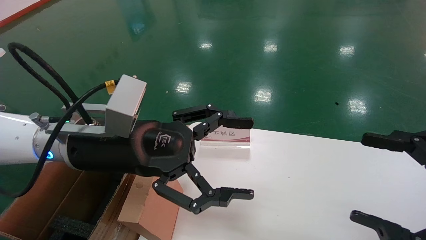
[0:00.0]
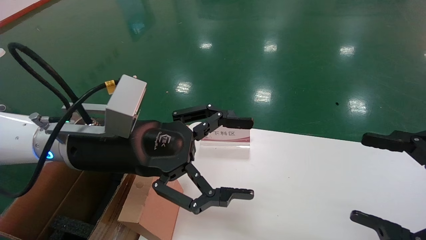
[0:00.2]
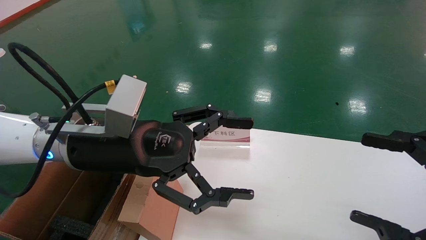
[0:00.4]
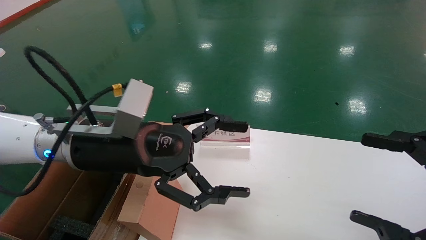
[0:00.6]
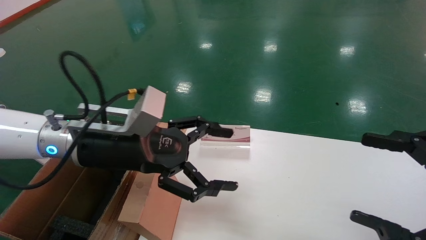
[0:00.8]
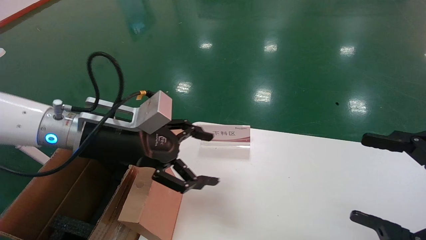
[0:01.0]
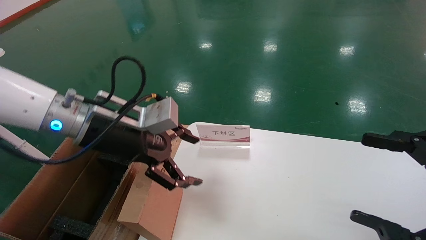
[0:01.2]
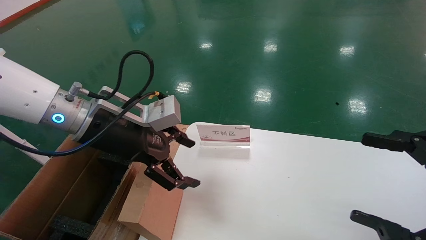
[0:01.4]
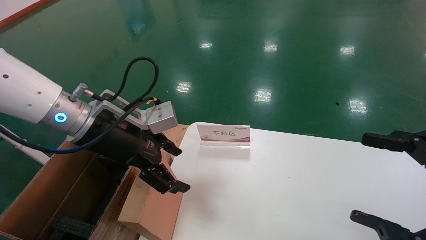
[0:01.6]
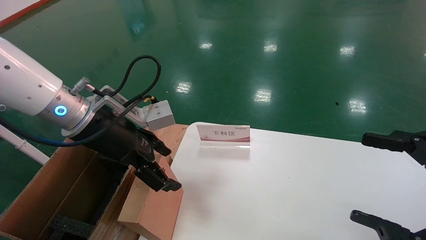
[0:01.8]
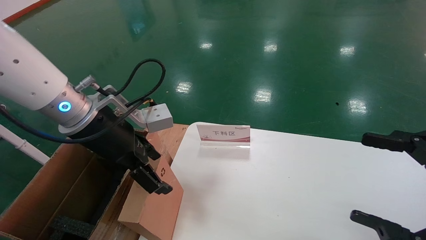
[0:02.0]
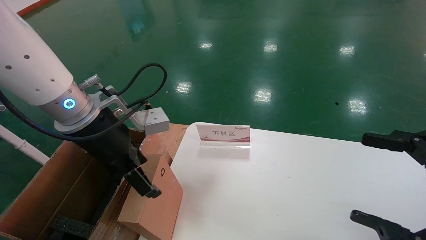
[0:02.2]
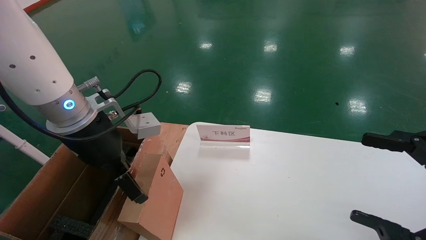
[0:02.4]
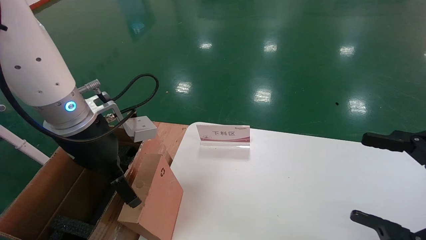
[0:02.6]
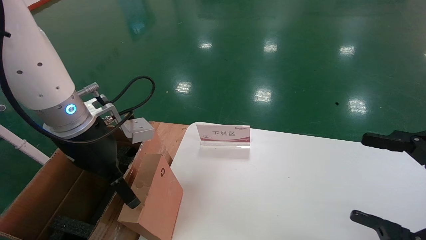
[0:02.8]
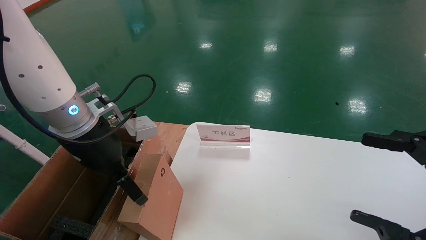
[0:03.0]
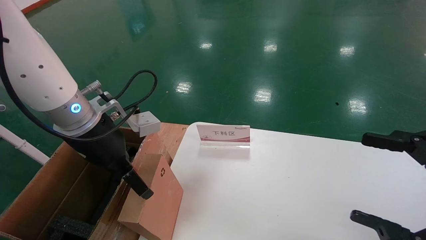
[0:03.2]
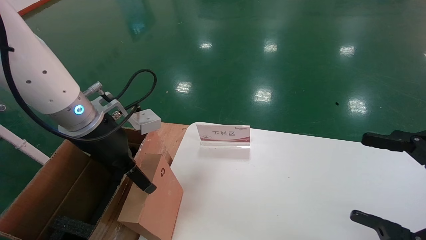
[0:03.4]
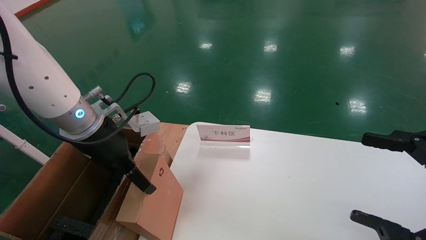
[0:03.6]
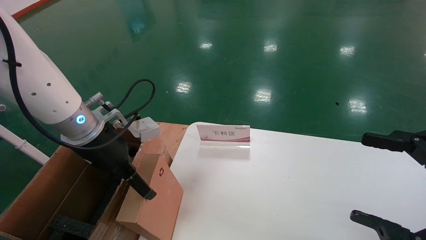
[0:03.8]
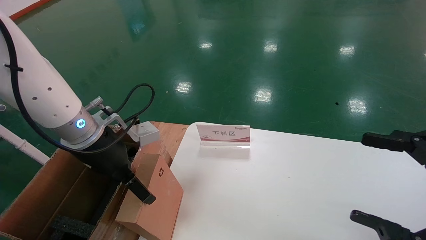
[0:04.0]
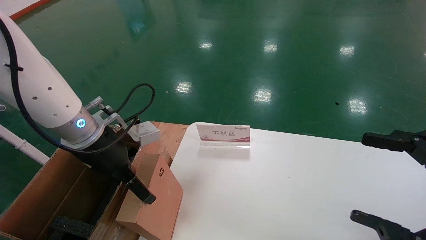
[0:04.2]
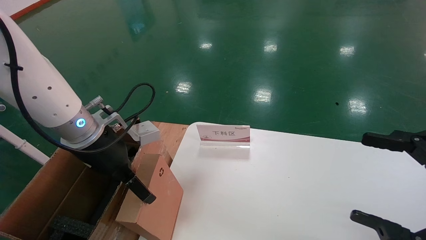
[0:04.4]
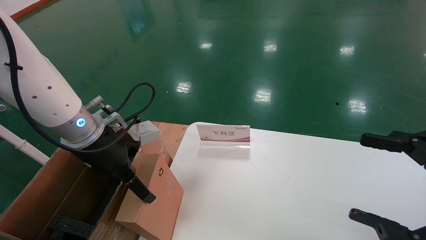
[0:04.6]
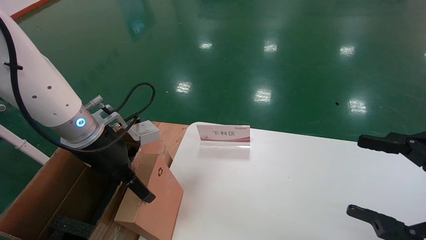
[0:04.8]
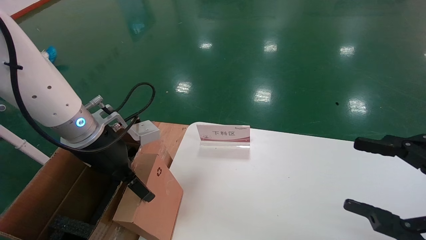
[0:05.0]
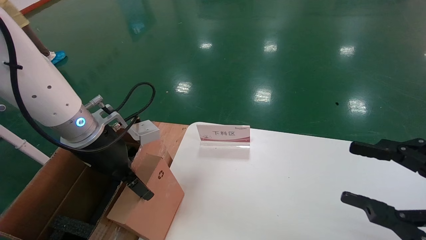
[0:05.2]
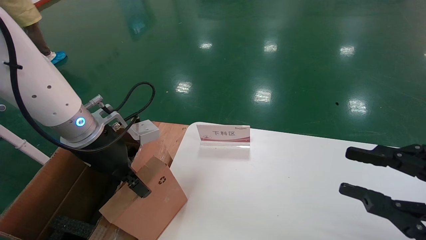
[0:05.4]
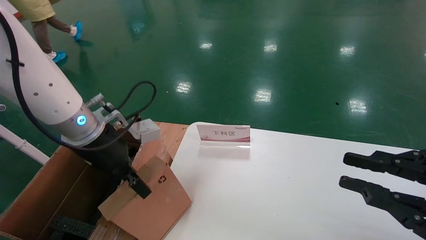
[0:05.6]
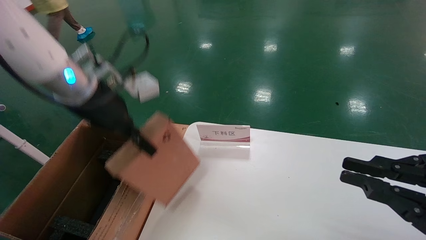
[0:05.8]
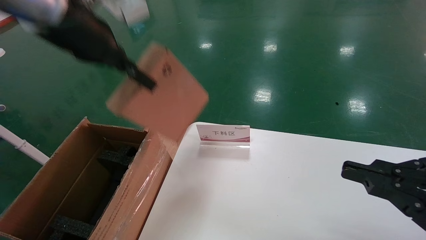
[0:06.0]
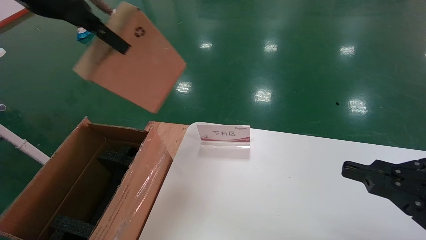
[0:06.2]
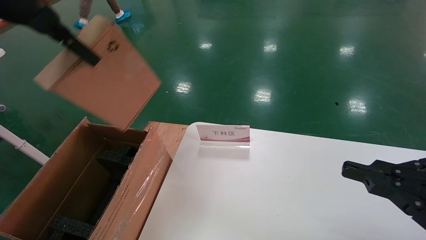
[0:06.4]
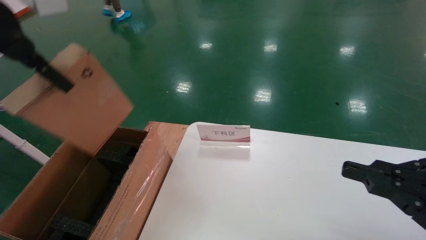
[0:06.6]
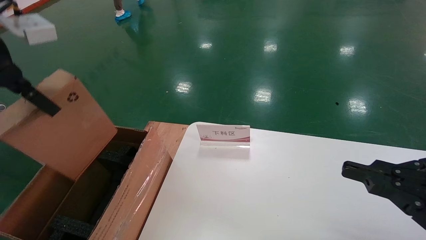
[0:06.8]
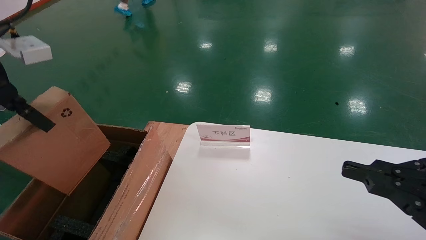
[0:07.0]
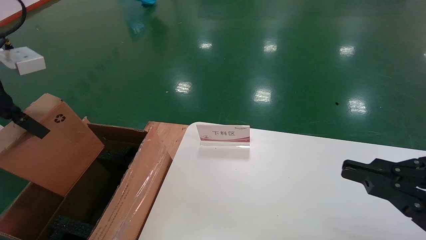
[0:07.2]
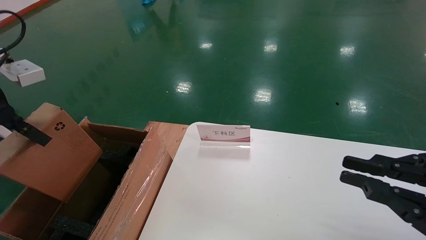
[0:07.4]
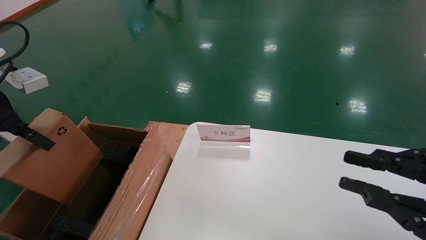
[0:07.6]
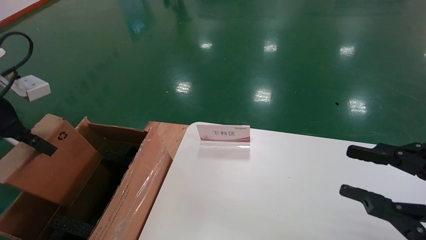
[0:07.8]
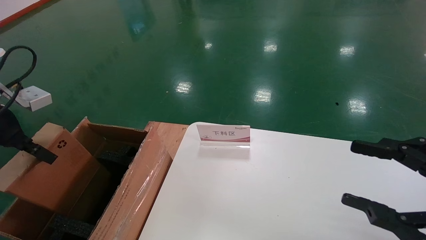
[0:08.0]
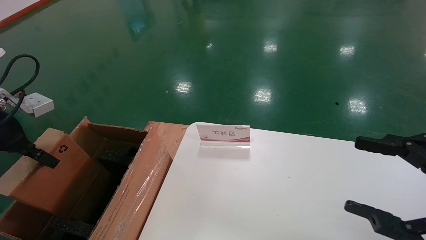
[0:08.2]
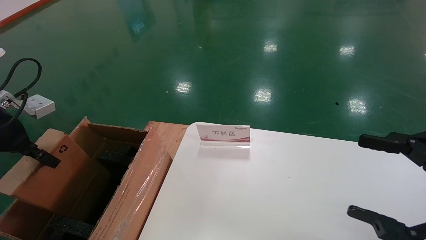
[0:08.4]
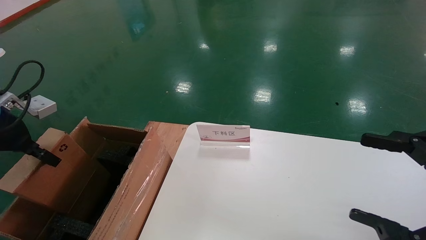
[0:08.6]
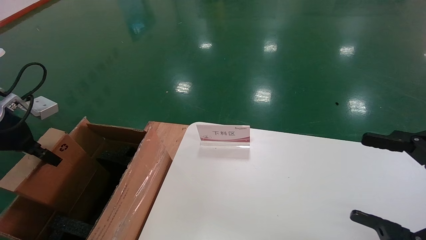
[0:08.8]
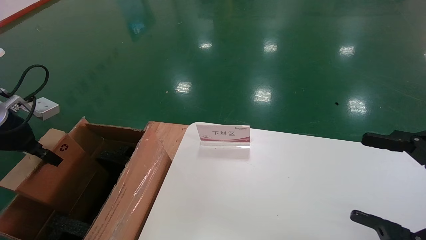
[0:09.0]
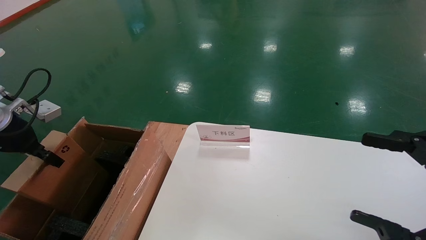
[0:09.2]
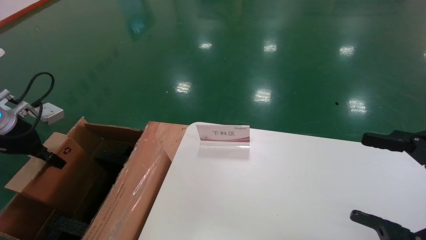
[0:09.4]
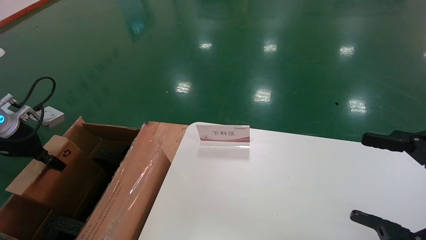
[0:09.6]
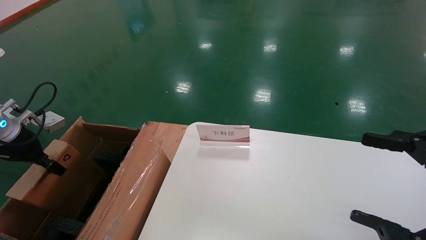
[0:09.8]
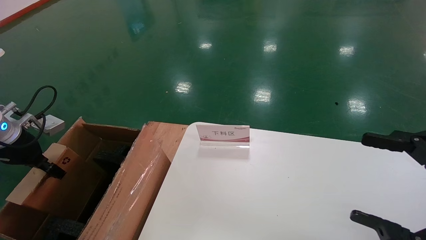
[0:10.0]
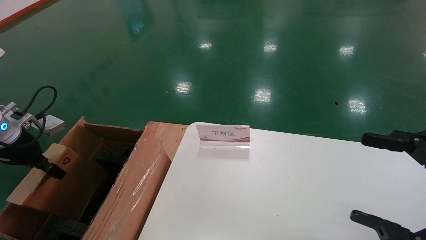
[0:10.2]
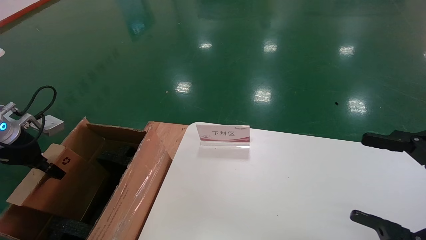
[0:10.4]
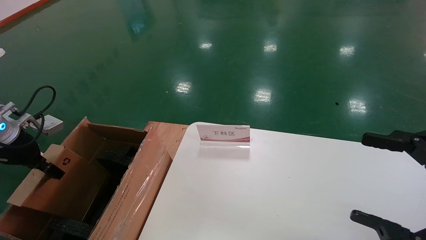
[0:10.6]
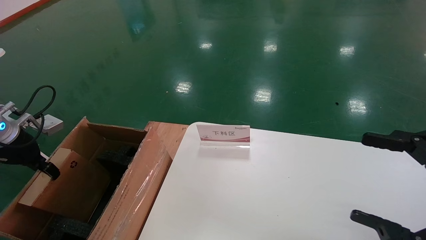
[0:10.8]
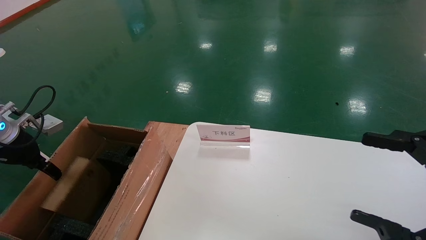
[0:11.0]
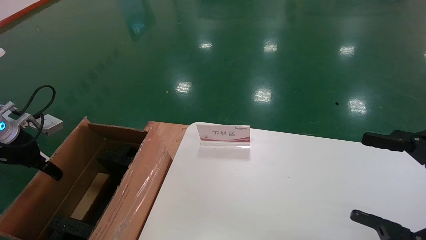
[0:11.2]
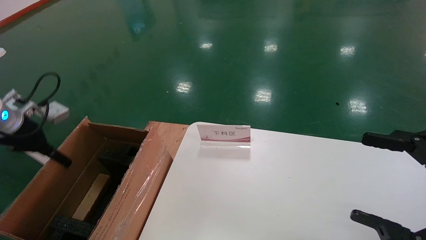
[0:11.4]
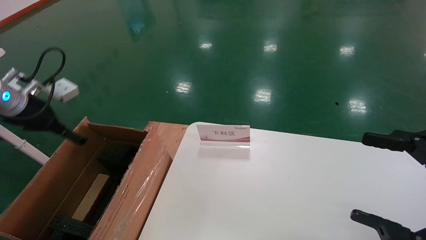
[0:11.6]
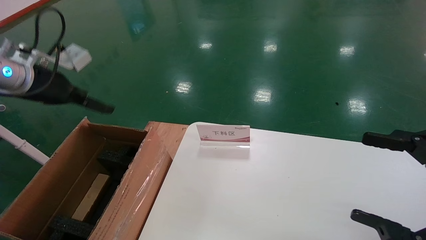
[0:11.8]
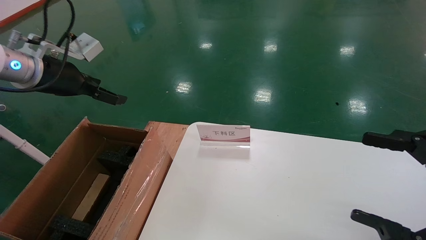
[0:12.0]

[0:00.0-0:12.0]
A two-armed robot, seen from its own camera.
Task of the whole recording: pick up the small cardboard box and load it into the large cardboard box.
Step, 0:01.0 to 0:05.8: Pick up the mouse and power cord box.
Step, 0:06.0 to 0:10.8: Place the mouse and power cord box into the case.
0:00.0 to 0:01.6: The left gripper ends up approximately 5 cm from where it was.
0:03.0 to 0:04.4: The grippers make only small movements.
0:04.4 to 0:06.0: The right gripper closes; the left gripper goes some 20 cm upward, and closes its fingers.
0:06.0 to 0:07.6: The left gripper heads to the left and downward, covering approximately 20 cm.
0:07.6 to 0:09.0: The right gripper opens its fingers. Meanwhile the left gripper is displaced downward by roughly 10 cm.
0:09.0 to 0:10.4: The left gripper changes place by roughly 5 cm.
0:10.4 to 0:12.0: The left gripper goes approximately 15 cm upward and to the right, and opens its fingers.

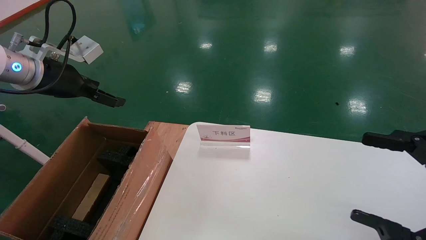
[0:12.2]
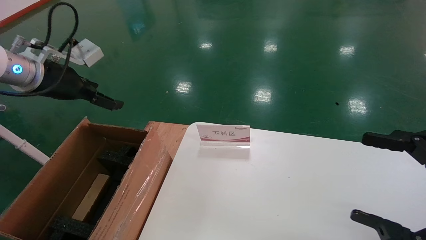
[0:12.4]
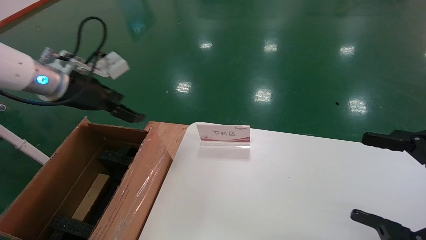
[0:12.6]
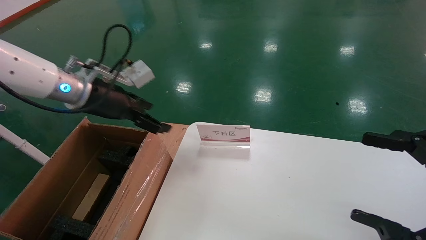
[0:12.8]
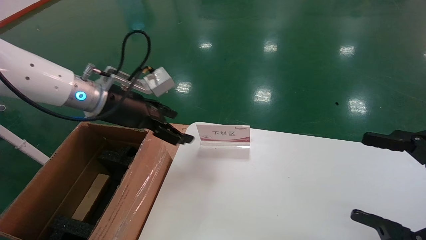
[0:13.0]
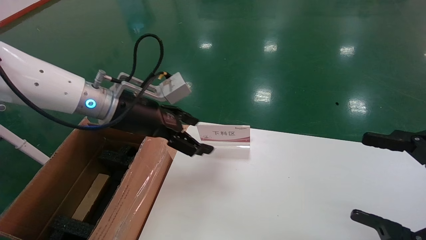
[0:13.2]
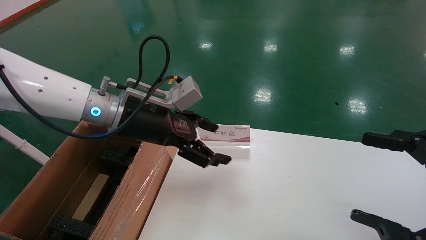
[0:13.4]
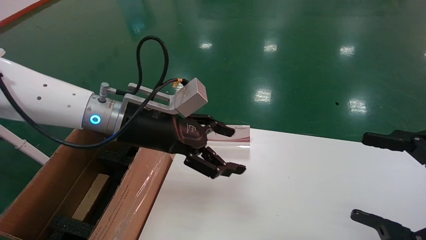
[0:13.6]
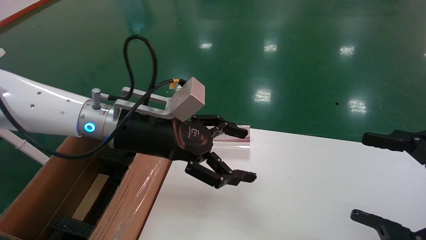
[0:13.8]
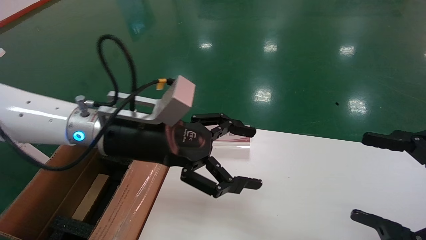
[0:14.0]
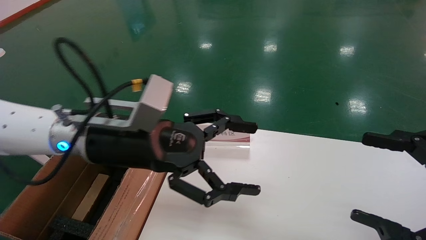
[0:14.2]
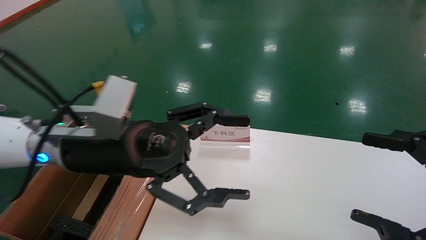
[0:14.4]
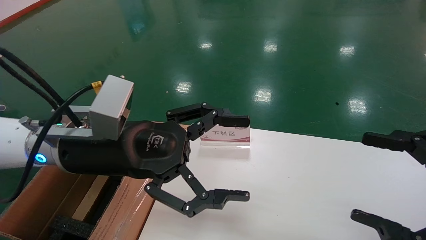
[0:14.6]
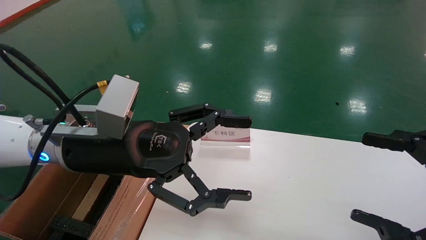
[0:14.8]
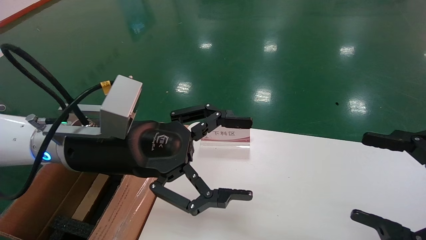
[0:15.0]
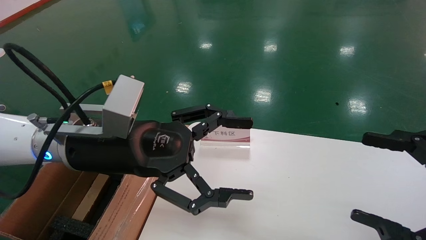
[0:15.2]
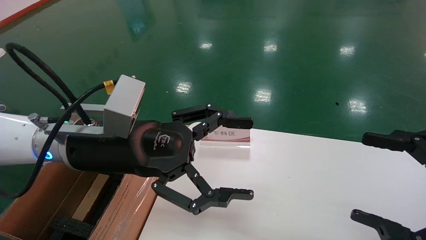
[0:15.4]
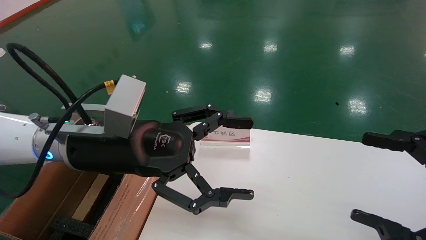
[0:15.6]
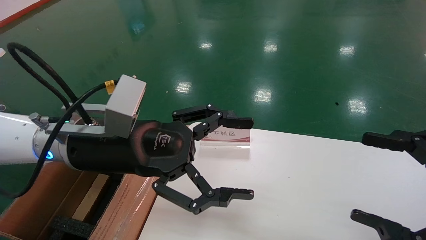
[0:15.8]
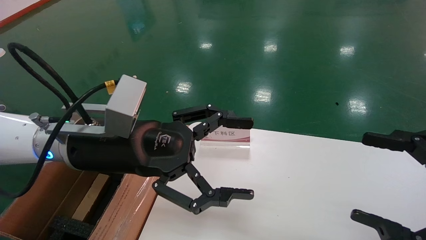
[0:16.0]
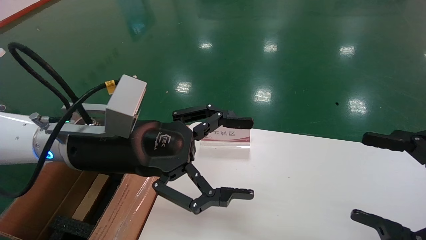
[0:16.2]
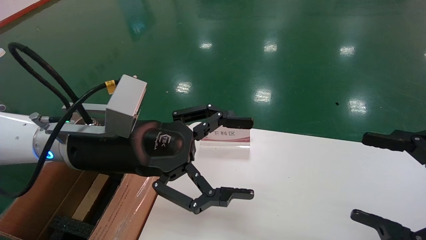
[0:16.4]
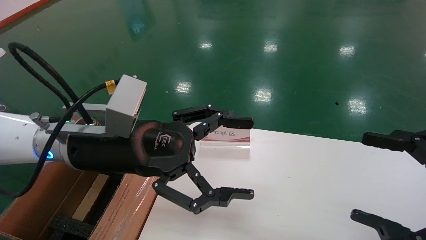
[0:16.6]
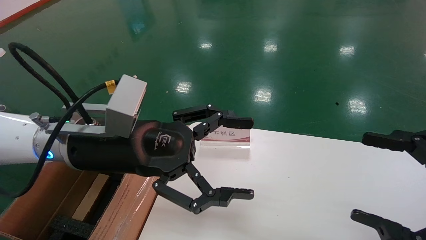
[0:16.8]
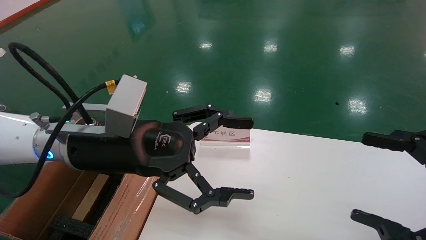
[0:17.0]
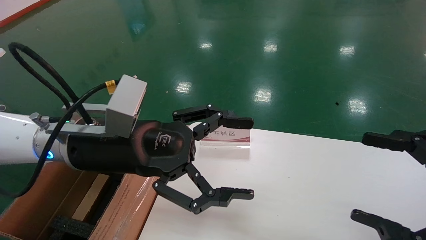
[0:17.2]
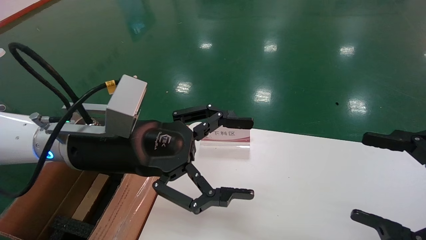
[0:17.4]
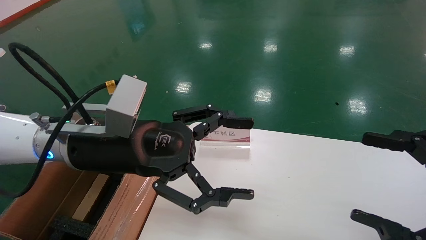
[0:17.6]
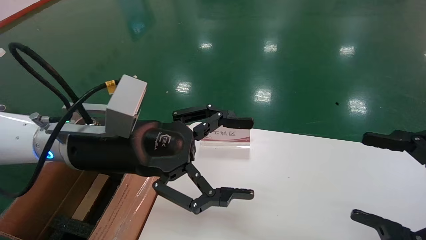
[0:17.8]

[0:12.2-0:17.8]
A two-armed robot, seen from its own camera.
Task of the whole recording: pick up the small cardboard box and load it into the large cardboard box.
0:12.2 to 0:13.6: The left gripper heads to the right, covering approximately 20 cm.
0:13.6 to 0:15.0: The left gripper travels backward by some 5 cm.
0:15.0 to 0:17.8: Both grippers stay put.
